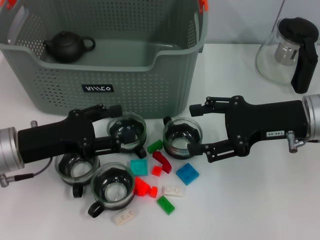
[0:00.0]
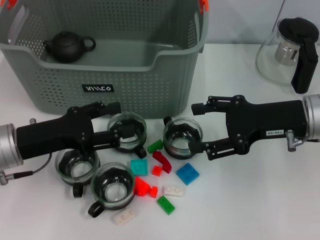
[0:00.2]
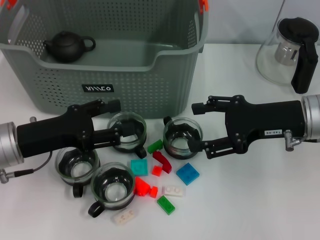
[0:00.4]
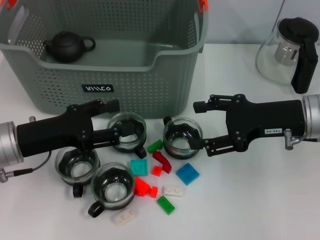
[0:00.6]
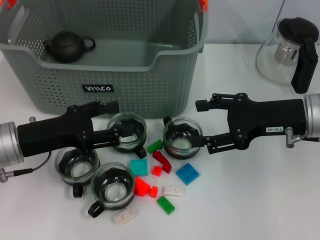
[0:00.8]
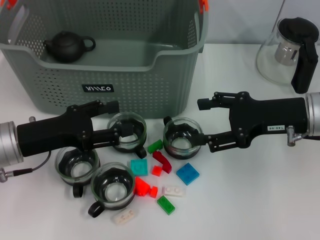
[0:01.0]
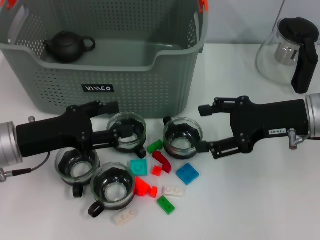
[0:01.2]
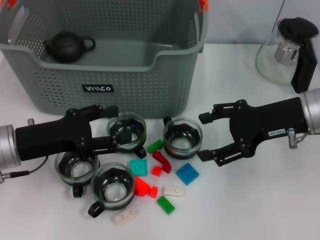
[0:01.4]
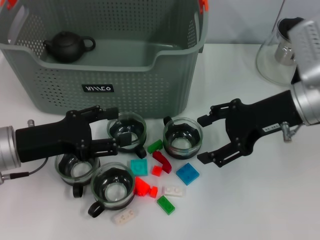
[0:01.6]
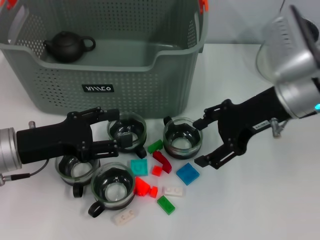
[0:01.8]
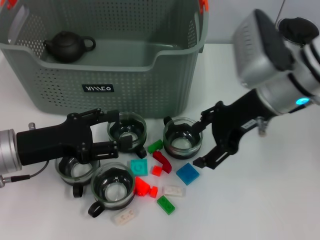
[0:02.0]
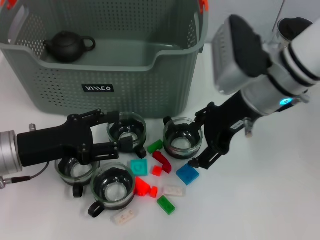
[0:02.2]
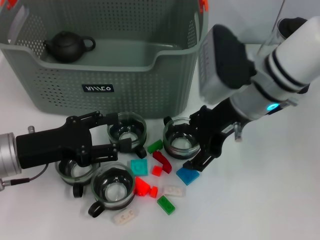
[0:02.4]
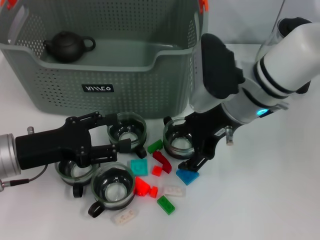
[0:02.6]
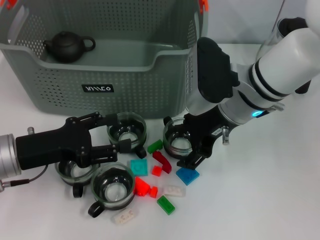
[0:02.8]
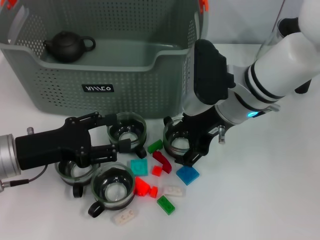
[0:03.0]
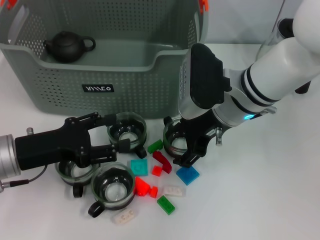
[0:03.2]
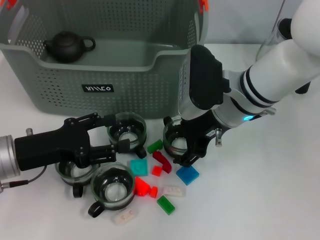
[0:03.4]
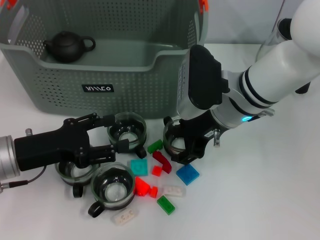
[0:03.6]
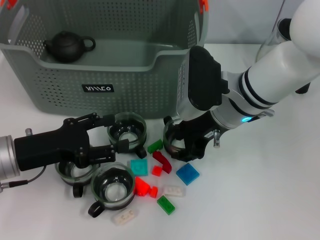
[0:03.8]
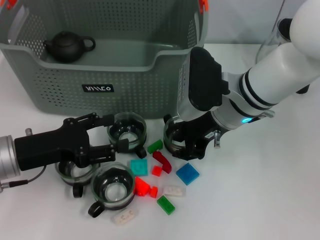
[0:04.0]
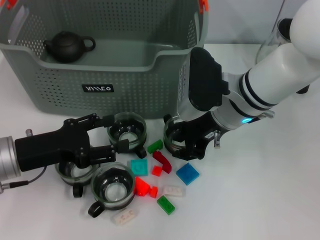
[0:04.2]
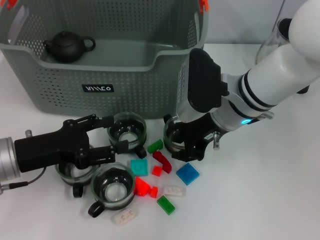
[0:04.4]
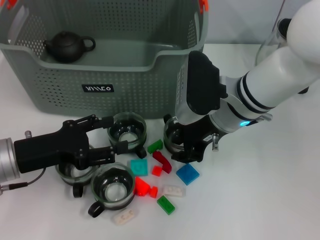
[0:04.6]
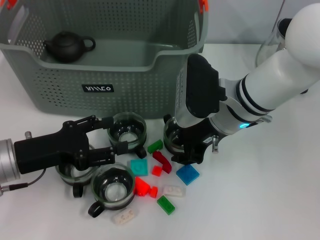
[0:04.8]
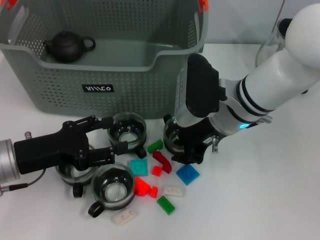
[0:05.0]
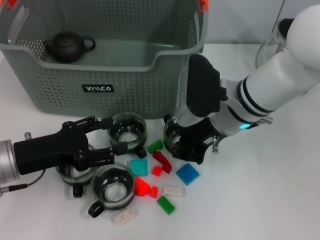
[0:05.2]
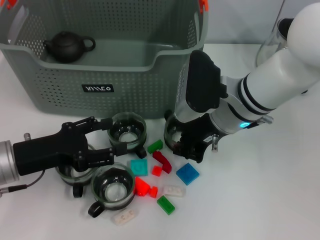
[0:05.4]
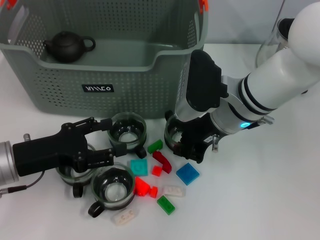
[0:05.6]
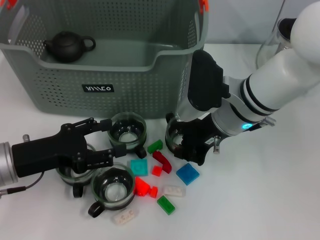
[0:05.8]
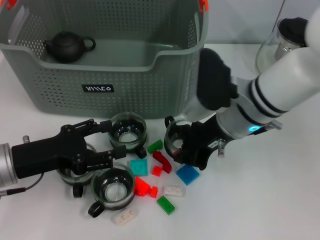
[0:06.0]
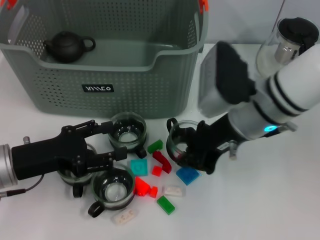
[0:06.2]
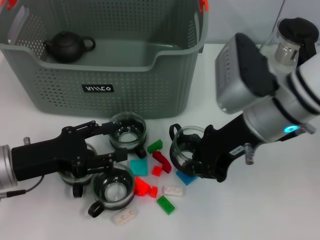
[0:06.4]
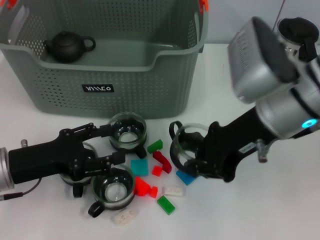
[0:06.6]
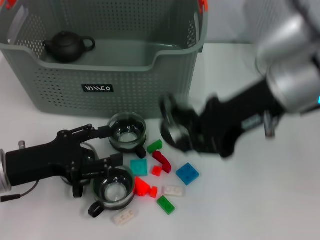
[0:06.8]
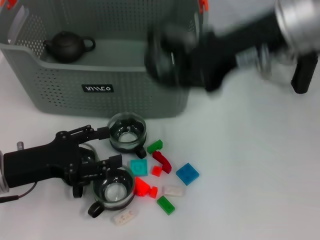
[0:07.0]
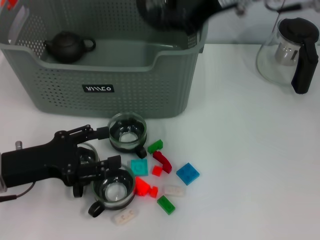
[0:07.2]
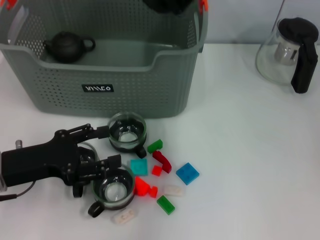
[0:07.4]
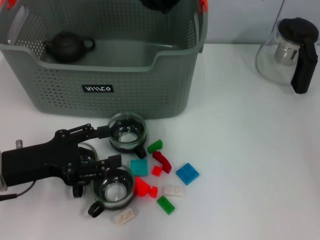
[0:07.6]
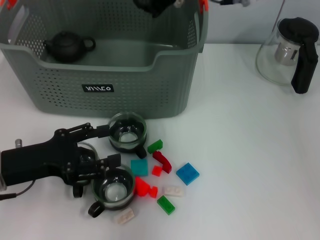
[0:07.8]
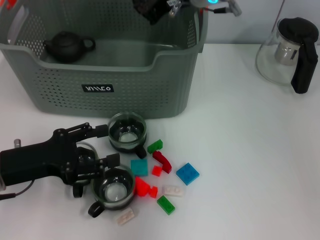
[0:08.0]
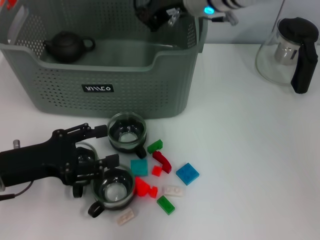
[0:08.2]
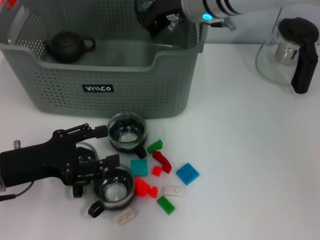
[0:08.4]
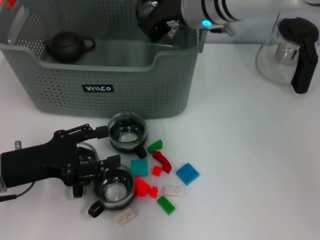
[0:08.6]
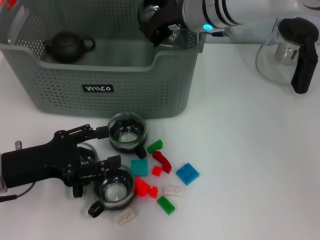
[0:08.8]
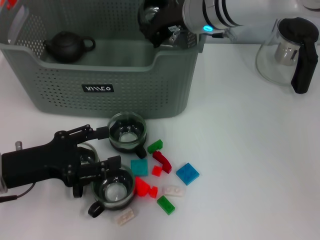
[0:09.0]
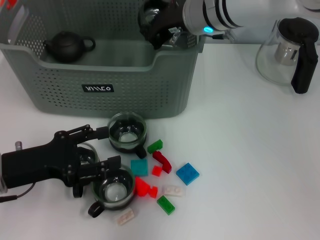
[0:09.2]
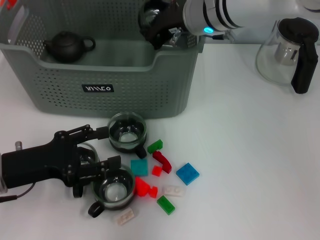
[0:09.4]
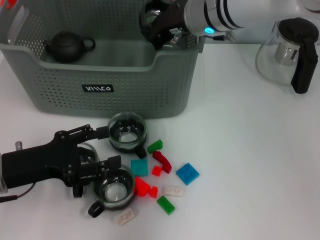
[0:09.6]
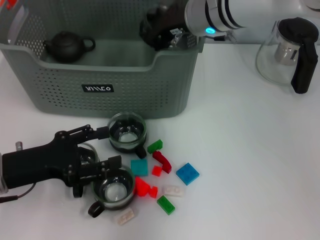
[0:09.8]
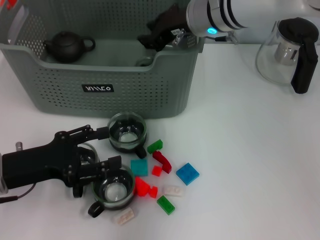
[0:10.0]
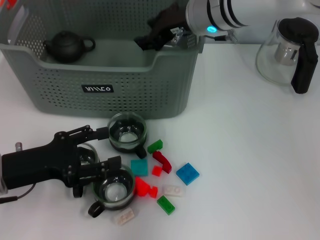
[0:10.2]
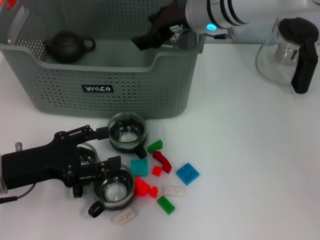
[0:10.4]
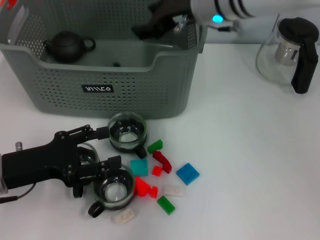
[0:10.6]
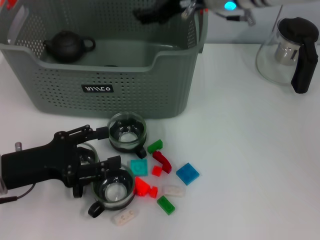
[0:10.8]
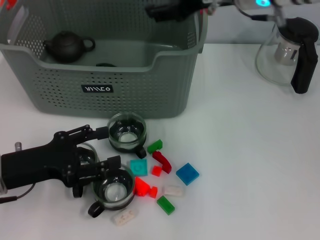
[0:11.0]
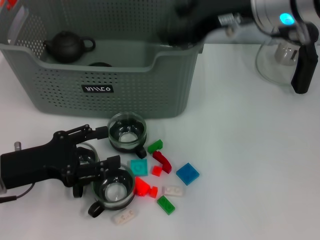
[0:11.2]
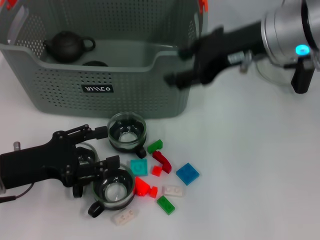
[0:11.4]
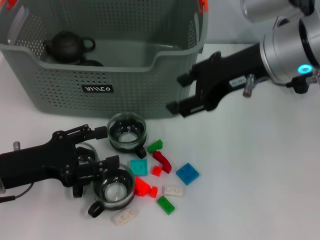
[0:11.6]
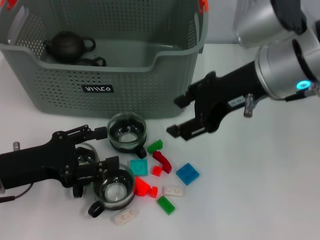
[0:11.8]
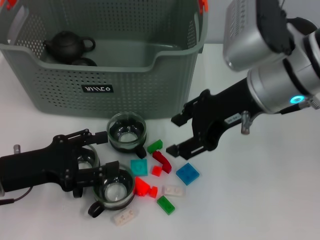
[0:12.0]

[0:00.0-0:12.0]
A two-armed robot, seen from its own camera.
Task of the whole recording: pick up the teacup on the table and place it into the storage bin, pick up the block on the table and place it into the storage bin.
Step, 0:00.0 to 0:05.4: Grasp the cup with right gripper.
Step, 0:05.6 to 0:10.0: Place the cup in the storage box with right gripper.
0:01.6 to 0:03.0: The right gripper moves to the left, roughly 10 cm.
0:03.0 to 0:04.4: The right gripper closes up.
0:04.4 to 0:06.0: The right gripper closes its fingers.
0:06.0 to 0:07.6: The right gripper moves upward and forward, approximately 15 cm.
0:07.6 to 0:09.0: The right gripper moves downward, about 10 cm.
0:09.0 to 0:10.4: The right gripper opens its fingers.
0:10.4 to 0:12.0: The right gripper is displaced backward and to the right by approximately 15 cm.

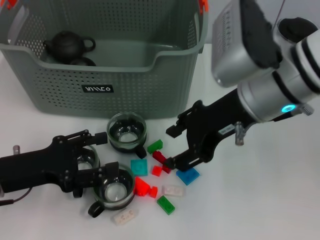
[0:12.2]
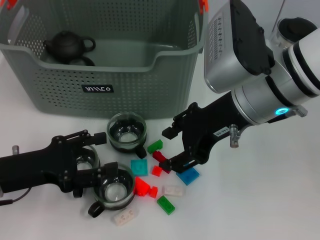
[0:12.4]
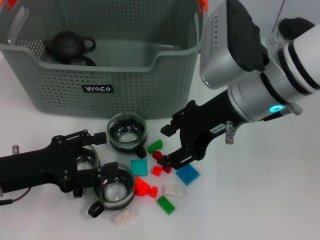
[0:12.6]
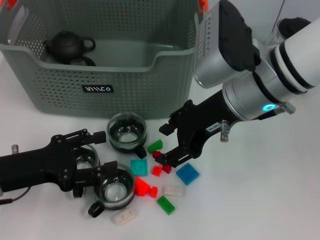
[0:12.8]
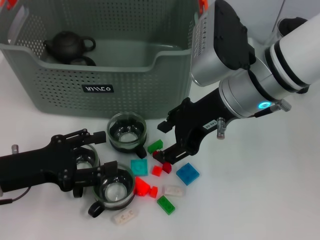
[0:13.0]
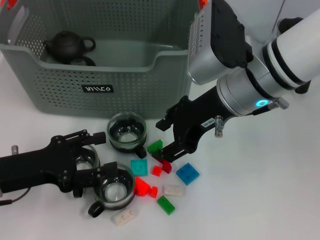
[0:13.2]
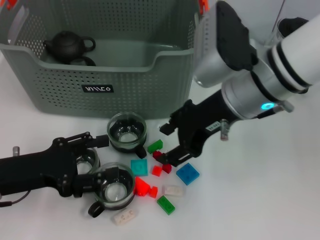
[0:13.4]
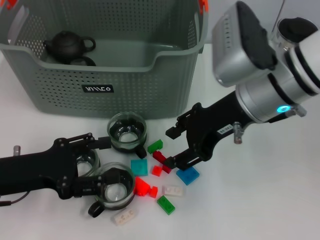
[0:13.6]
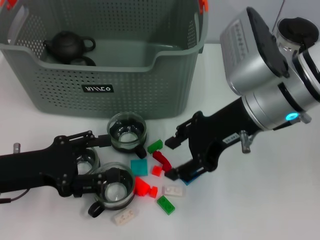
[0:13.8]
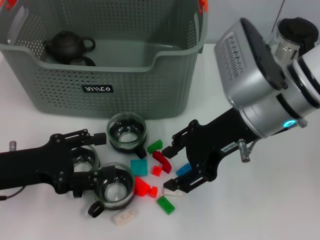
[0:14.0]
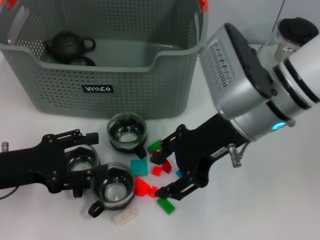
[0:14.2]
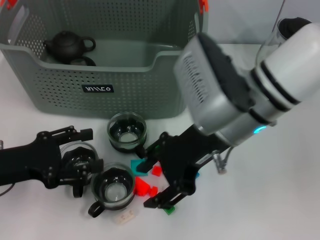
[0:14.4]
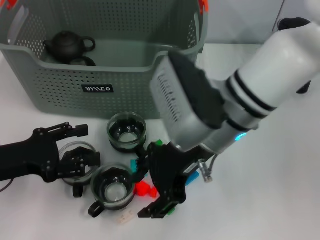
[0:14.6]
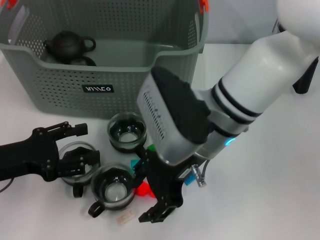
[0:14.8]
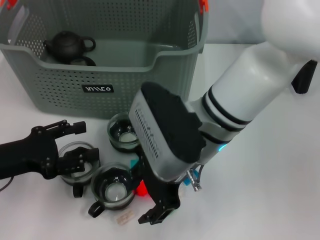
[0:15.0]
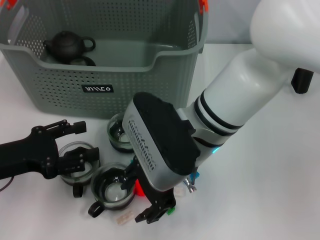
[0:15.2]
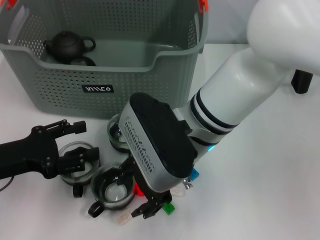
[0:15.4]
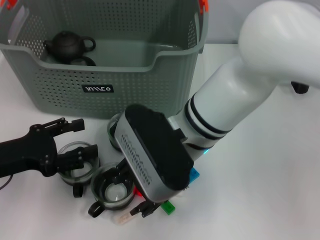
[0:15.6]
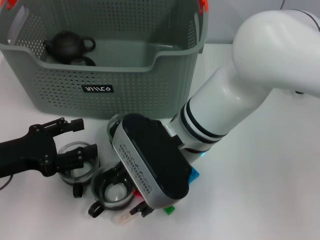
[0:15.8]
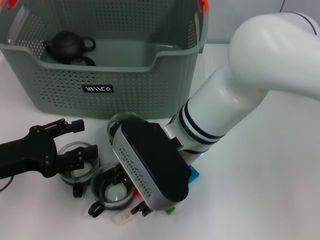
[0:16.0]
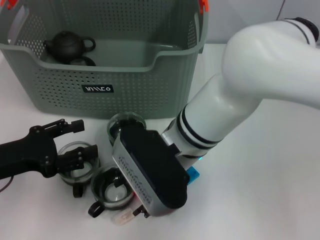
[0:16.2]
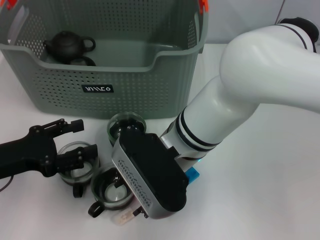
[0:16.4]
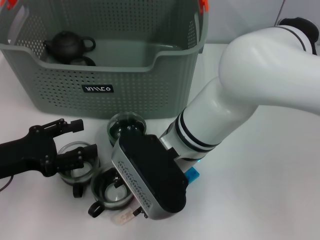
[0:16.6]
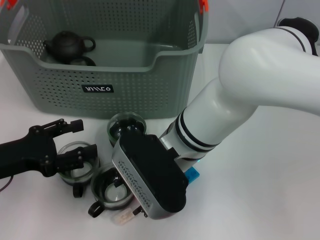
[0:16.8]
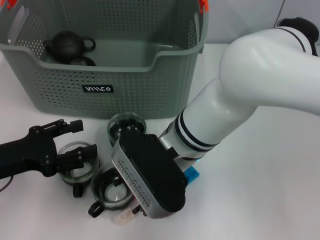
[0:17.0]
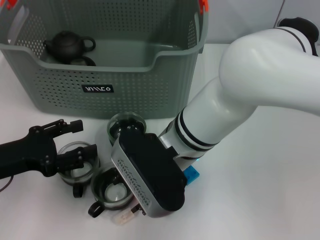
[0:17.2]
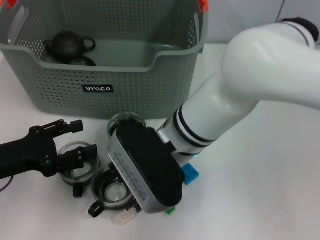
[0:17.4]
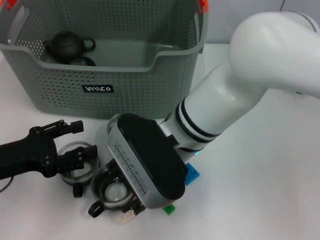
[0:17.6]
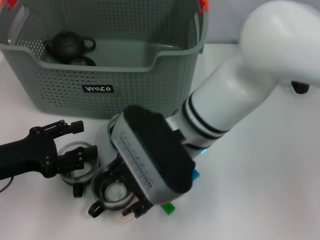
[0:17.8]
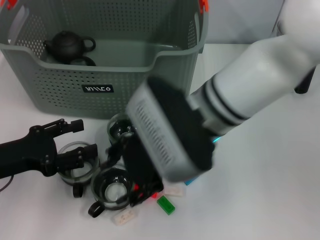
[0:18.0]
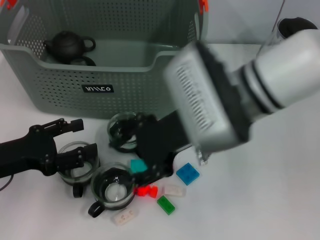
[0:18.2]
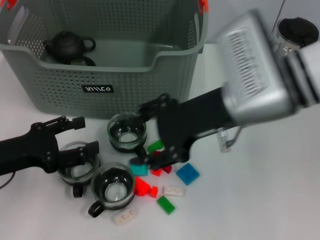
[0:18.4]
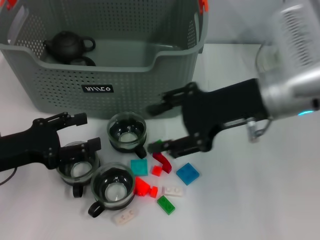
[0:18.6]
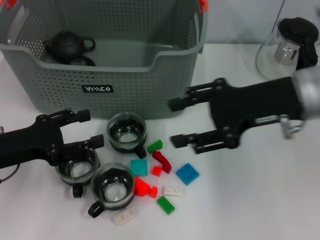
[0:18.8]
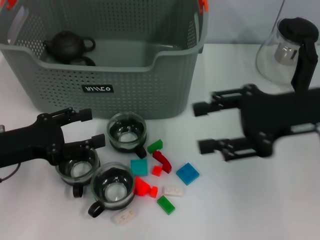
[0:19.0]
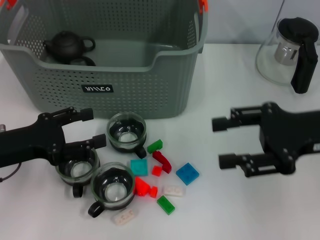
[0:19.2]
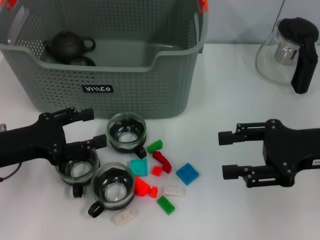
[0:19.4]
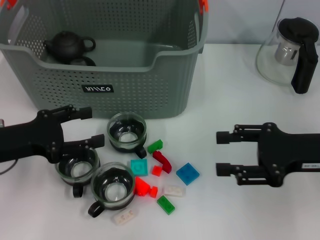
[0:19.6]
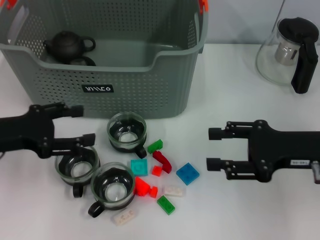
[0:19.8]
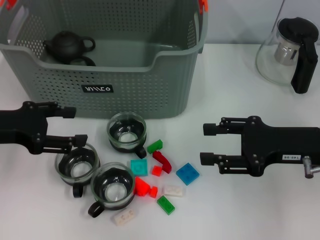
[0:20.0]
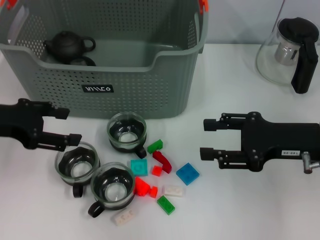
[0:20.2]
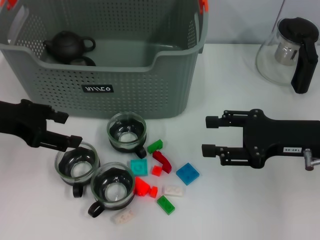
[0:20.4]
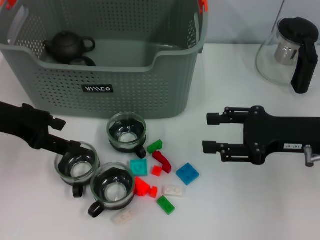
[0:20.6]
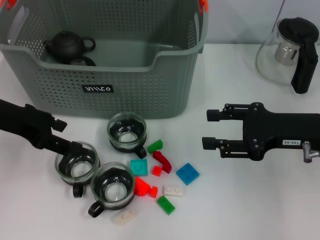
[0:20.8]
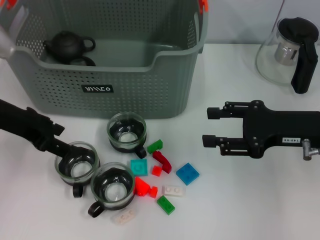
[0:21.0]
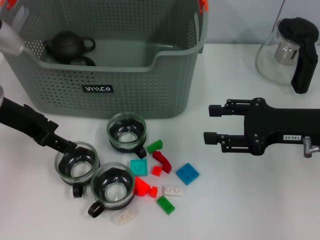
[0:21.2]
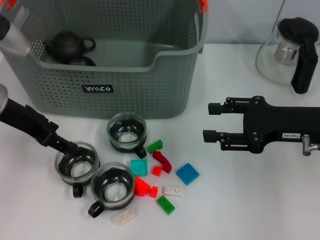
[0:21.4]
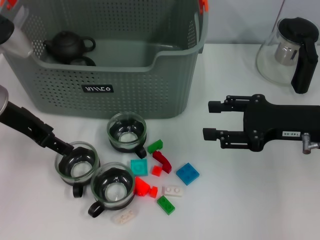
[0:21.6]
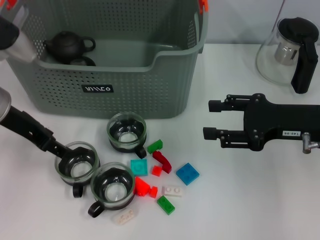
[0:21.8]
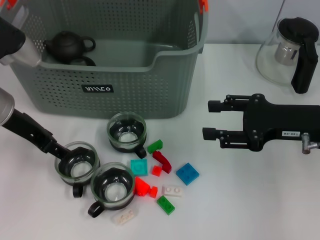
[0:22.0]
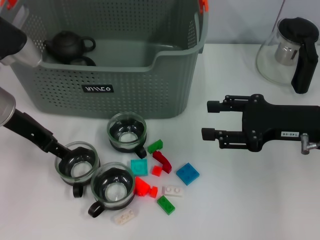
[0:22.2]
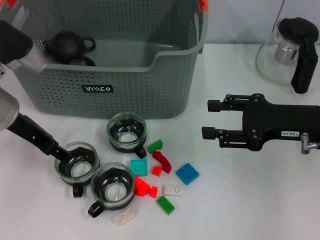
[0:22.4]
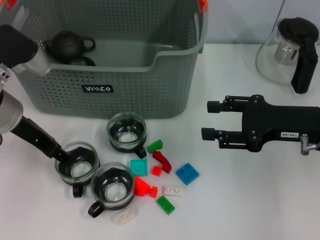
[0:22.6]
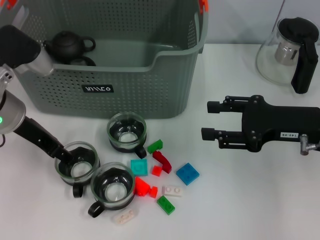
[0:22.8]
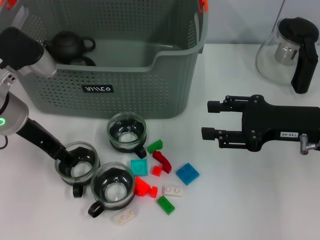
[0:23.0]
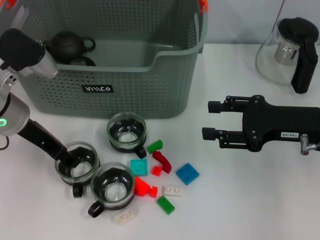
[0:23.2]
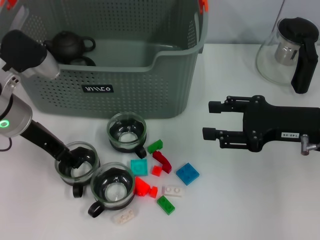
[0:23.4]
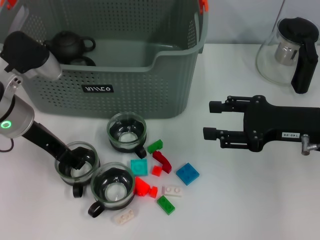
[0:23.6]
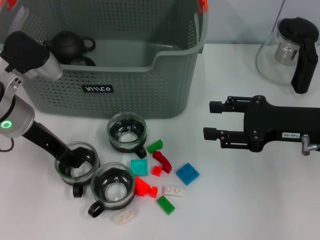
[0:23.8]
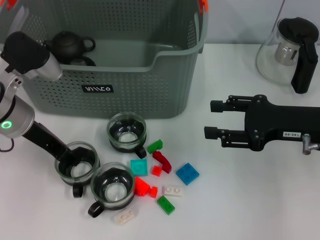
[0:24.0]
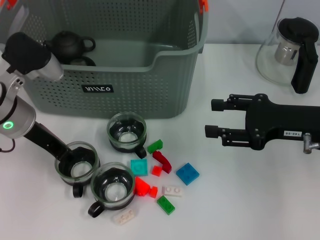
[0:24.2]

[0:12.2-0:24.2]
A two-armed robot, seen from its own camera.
Task of the whole recording: pick up the teacup on the table and place it into the storage bin, pick up the block on the table and place it into the storage bin.
0:12.2 to 0:13.8: The grippers move only a little.
0:13.8 to 0:15.2: The right gripper shifts roughly 10 cm to the left.
0:16.6 to 0:18.2: The right gripper is displaced upward and to the right by approximately 10 cm.
0:18.2 to 0:19.8: The right gripper heads to the right and downward, covering about 20 cm.
0:19.8 to 0:21.2: The left gripper goes some 10 cm forward and upward.
0:21.2 to 0:22.6: The grippers stay close to where they were, moving slightly.
0:22.6 to 0:24.2: The left gripper closes up.
